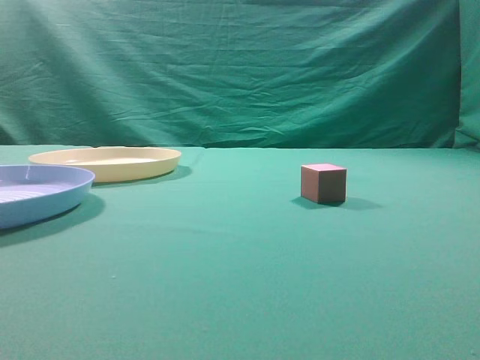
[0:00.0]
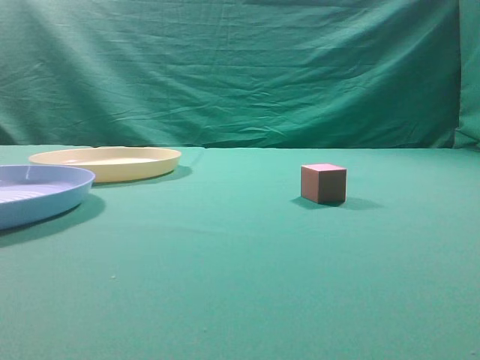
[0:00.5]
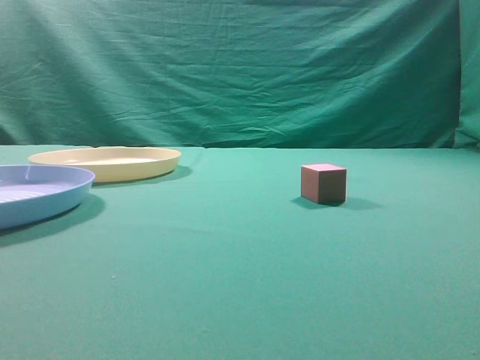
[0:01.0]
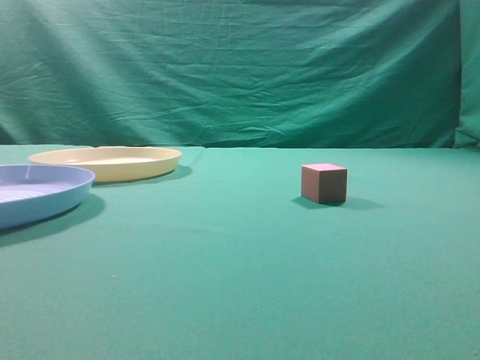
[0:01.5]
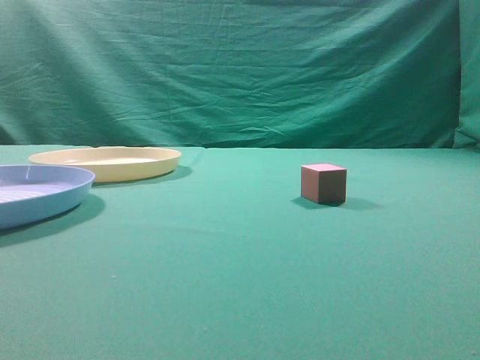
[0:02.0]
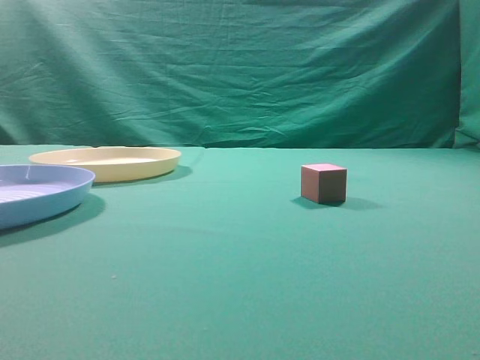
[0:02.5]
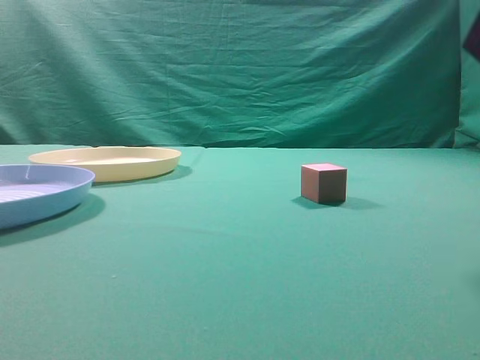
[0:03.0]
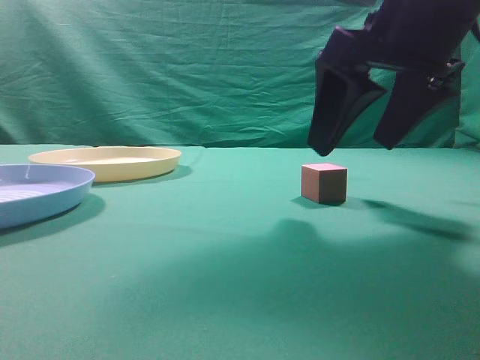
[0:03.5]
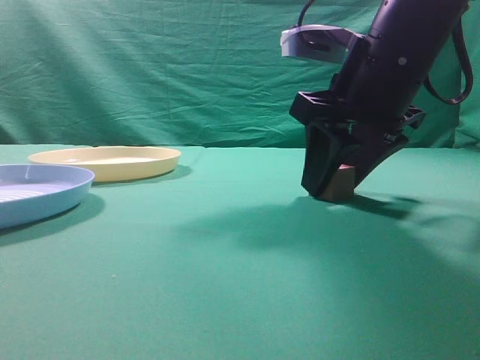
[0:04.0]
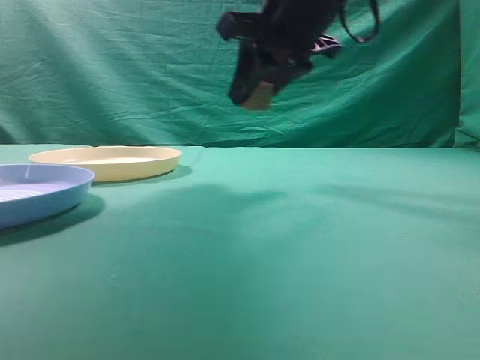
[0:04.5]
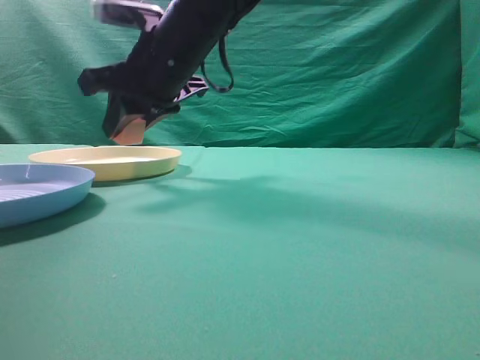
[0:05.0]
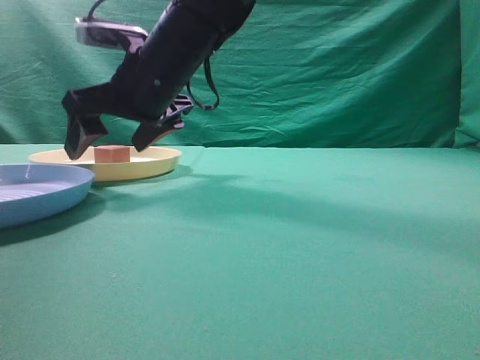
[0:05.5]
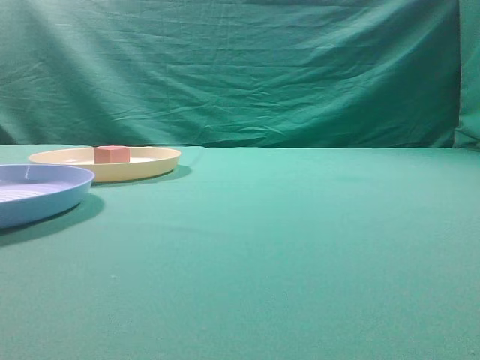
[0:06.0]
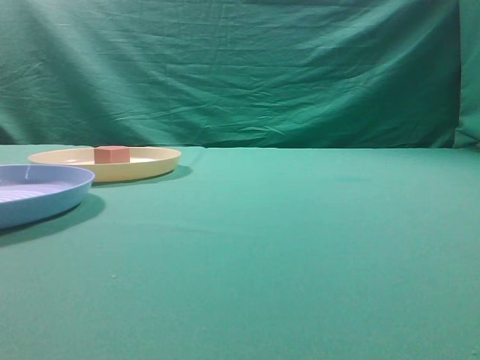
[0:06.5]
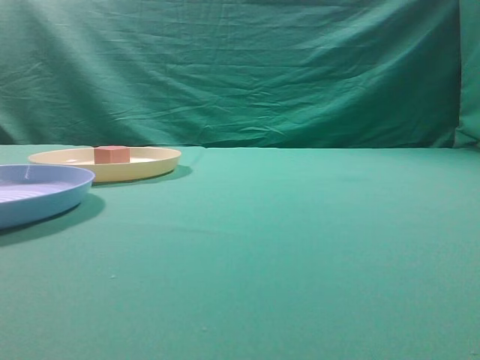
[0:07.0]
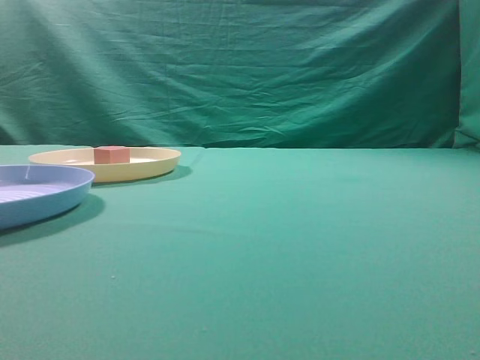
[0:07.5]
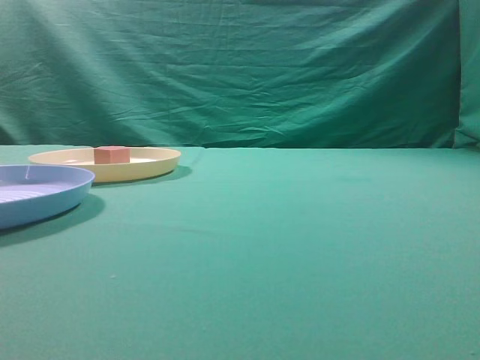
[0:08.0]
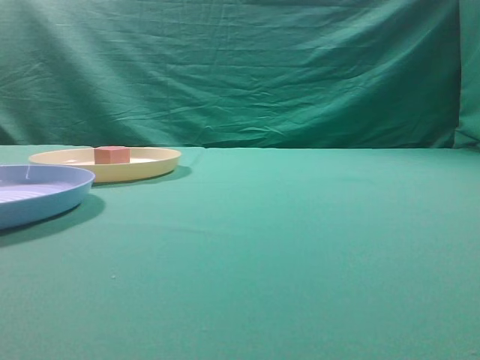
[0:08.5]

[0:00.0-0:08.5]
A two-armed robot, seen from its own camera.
Task of the whole recording: pick up the cube block from the table and put it on the plate.
Step, 0:00.0 to 0:03.5: Grasp the small cube on the table.
Step, 0:04.0 to 0:04.5: Place it into the yellow plate.
0:02.0 to 0:04.0: The right gripper heads forward, to the left and downward, covering some 30 cm, and opens its fingers.
0:04.0 to 0:06.5: The right gripper swings up and down, roughly 30 cm each way, with 2 reversals, and closes its fingers.
